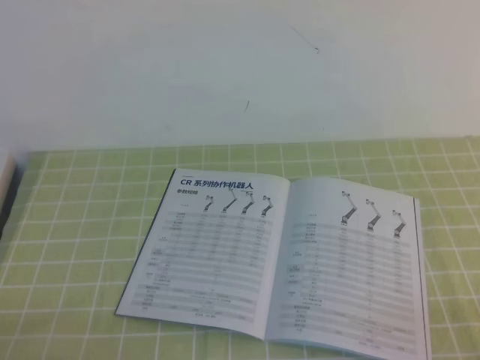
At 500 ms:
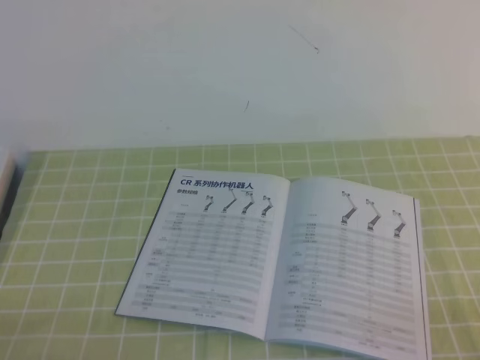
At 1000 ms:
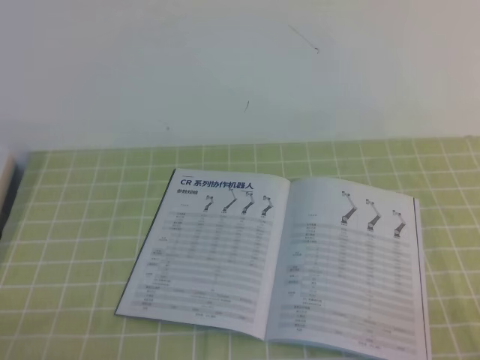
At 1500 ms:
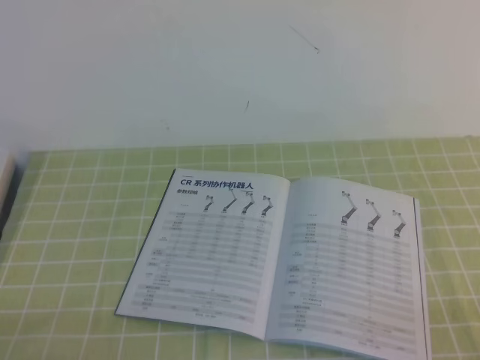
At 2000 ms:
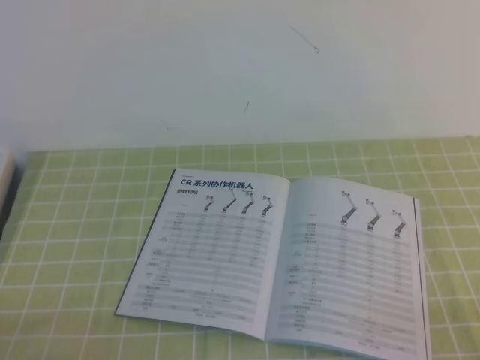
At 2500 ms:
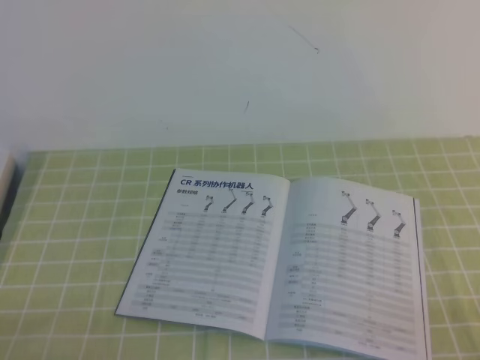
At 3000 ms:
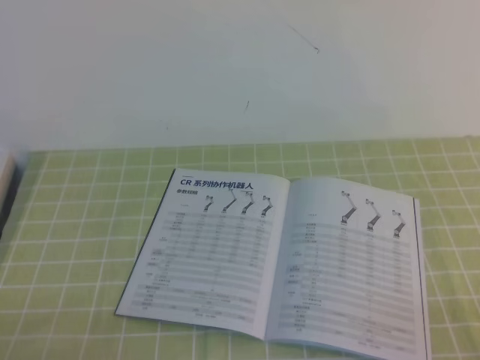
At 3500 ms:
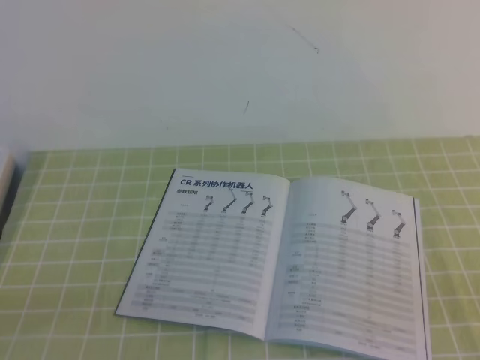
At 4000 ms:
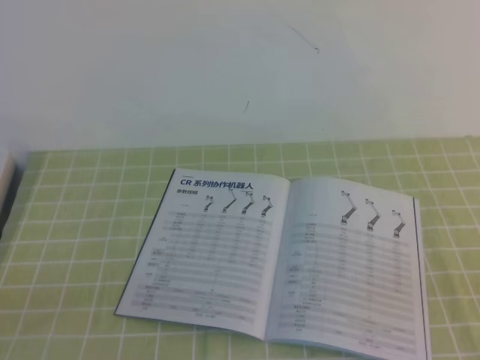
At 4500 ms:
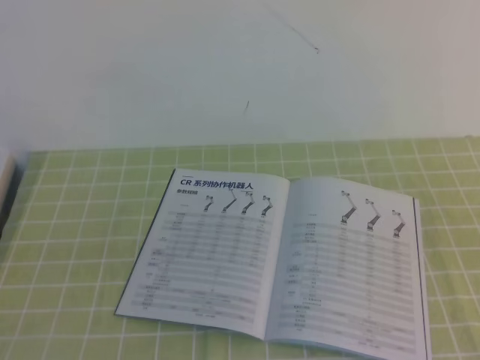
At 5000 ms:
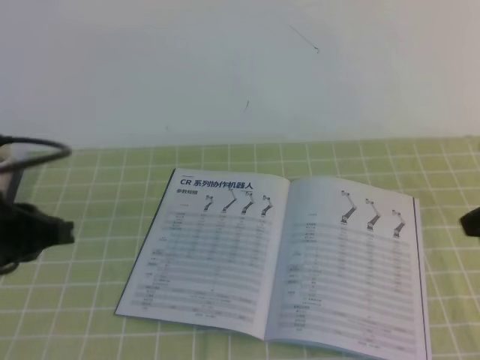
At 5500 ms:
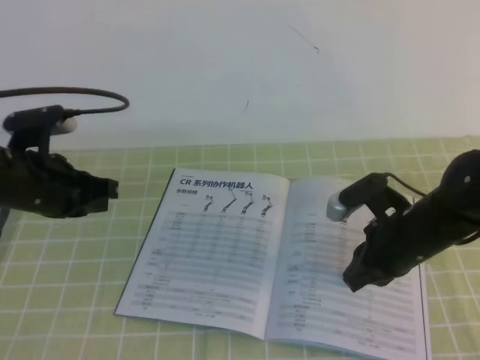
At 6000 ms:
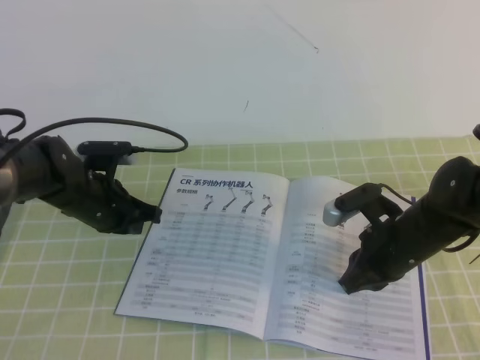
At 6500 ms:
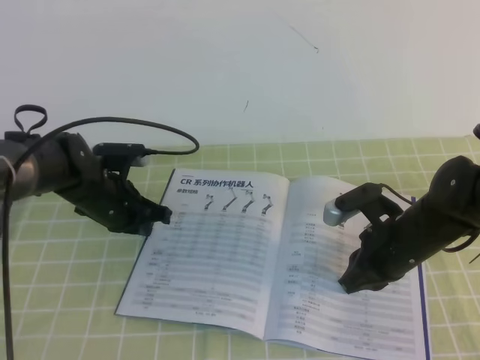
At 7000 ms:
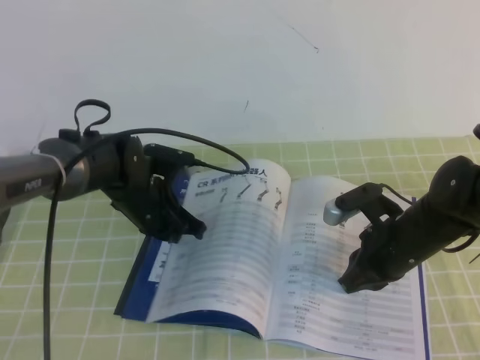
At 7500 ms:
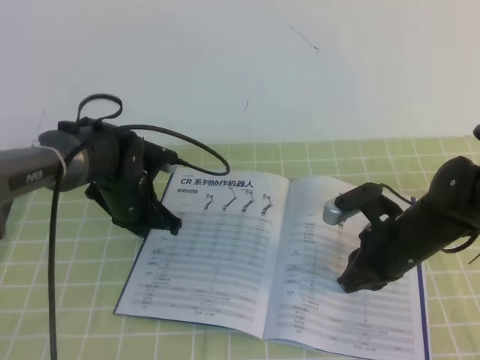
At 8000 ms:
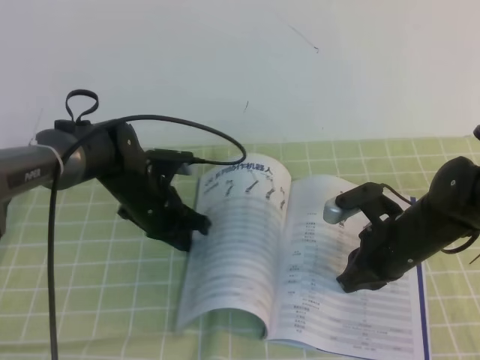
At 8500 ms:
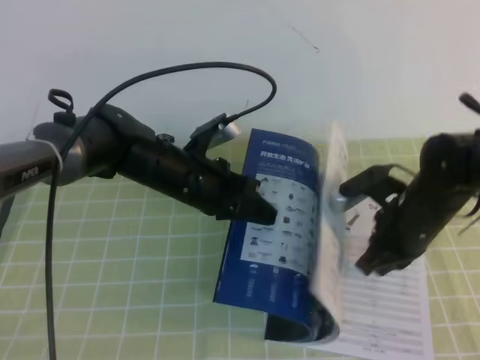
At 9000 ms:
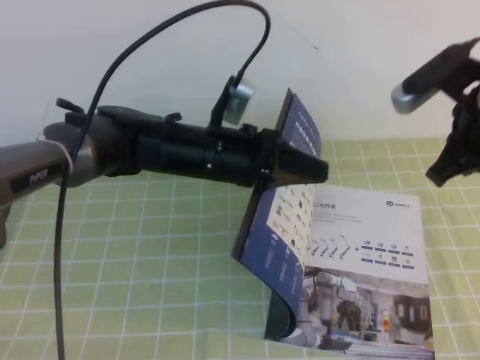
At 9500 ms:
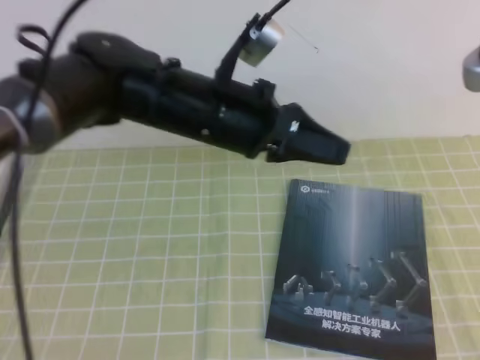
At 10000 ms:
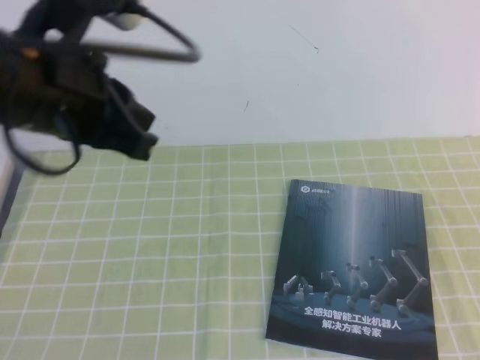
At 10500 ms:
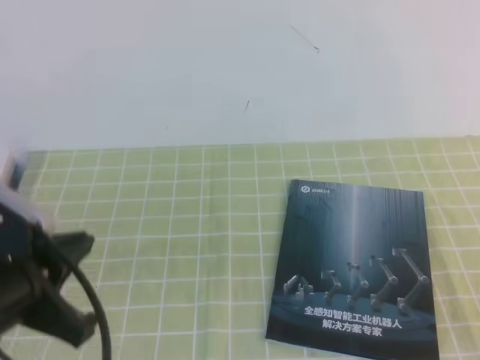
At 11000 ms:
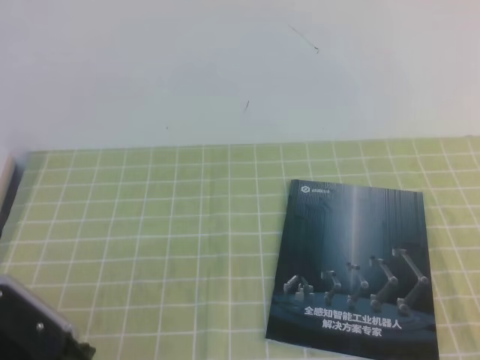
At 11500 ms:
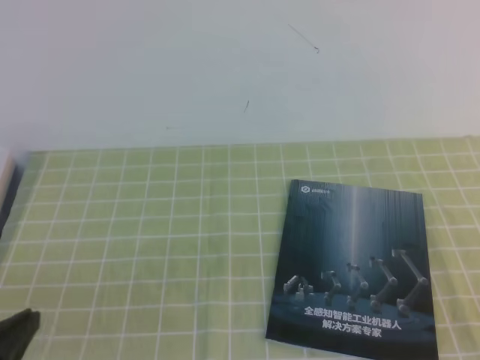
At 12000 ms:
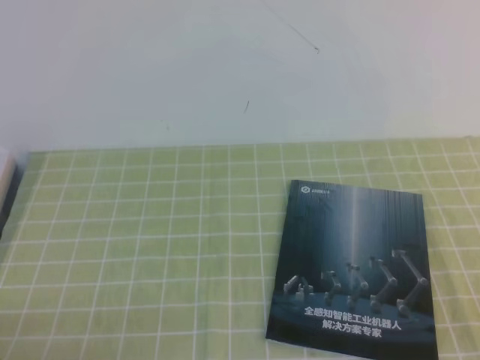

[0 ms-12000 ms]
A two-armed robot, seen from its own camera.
Task of the whole recording: on the green tablecloth, hold the book with one hand and close it with the other.
0 ms to 2000 ms: Neither gripper changes place.
4000 ms to 6000 ms: The right gripper moves forward, to the left and downward, some 35 cm; the left gripper moves forward, approximately 35 cm.
6000 ms to 8000 ms: The left gripper goes approximately 5 cm to the right.
8000 ms to 10000 ms: The left gripper heads upward and backward, covering some 30 cm. Meanwhile the right gripper goes approximately 30 cm upward, backward and to the right.
10000 ms to 12000 ms: The right gripper heads downward and backward, covering roughly 10 cm. The left gripper travels downward, backward and to the left by approximately 30 cm.

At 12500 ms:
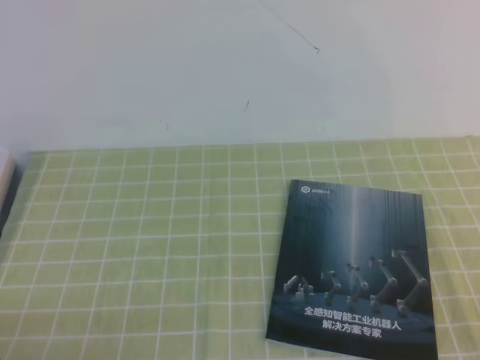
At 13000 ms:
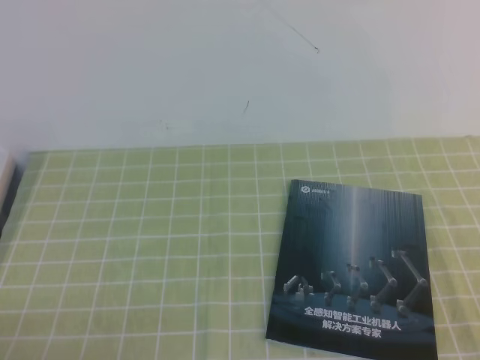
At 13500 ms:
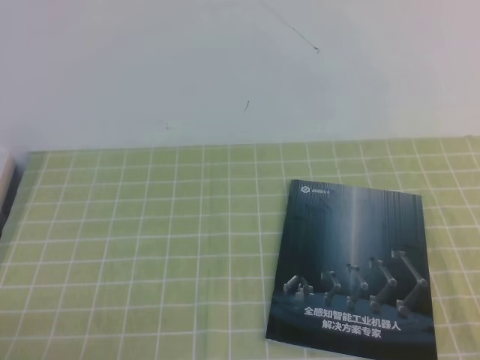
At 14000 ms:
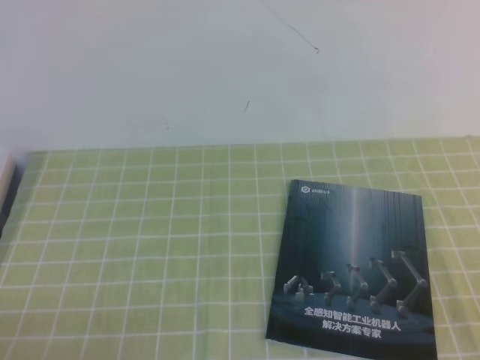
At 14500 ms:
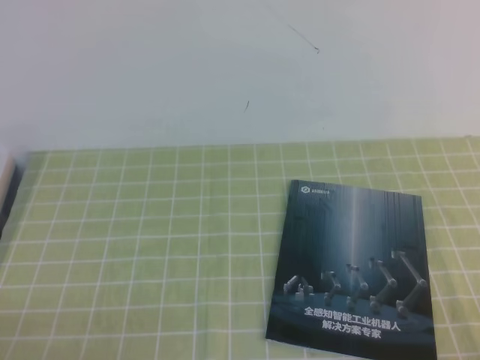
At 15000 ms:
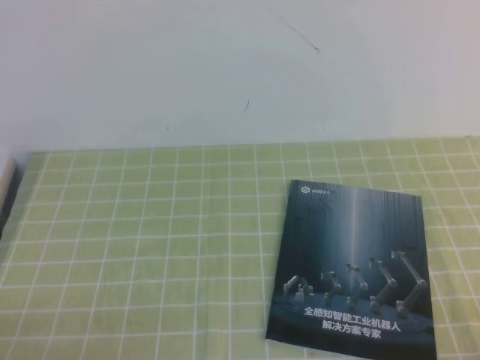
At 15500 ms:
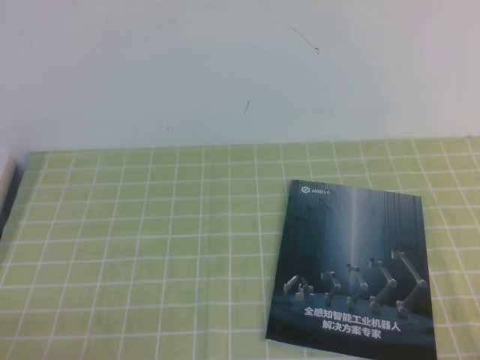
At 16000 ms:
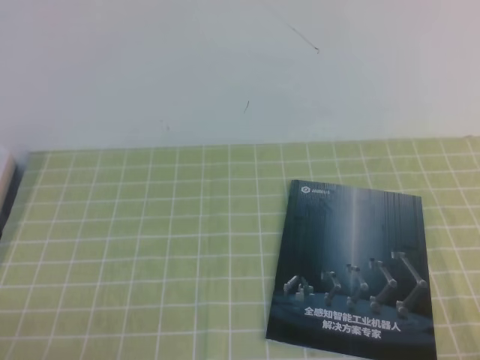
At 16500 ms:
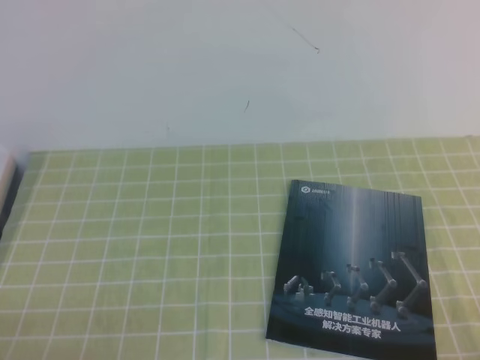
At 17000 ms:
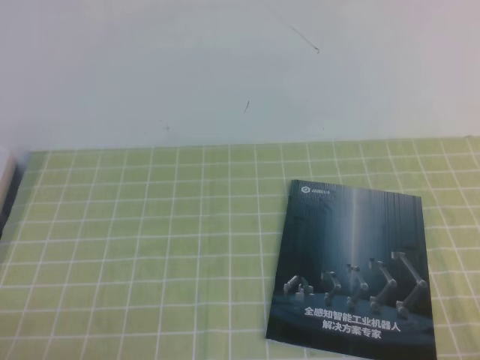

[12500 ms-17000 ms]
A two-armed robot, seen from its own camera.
Task of the whole recording: on the green tablecloth, hold the book with one hand and close it with the other.
14500 ms to 17000 ms: Both grippers stay about where they are.
